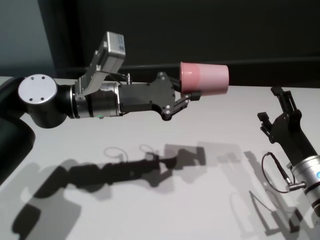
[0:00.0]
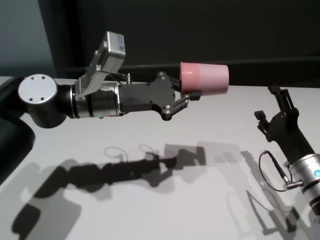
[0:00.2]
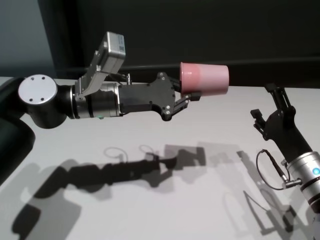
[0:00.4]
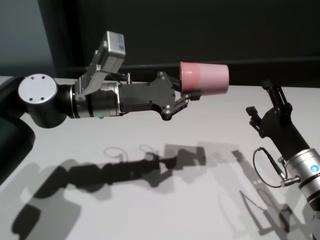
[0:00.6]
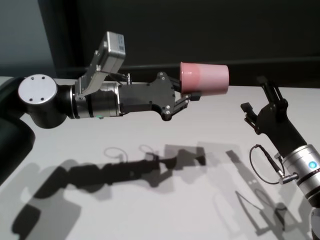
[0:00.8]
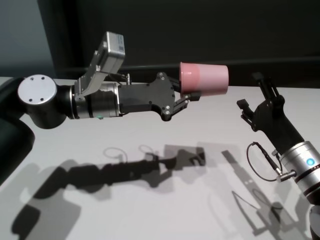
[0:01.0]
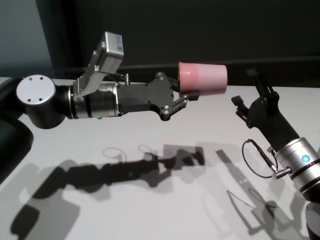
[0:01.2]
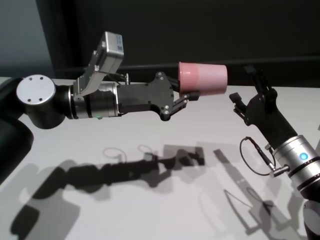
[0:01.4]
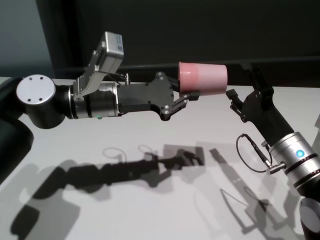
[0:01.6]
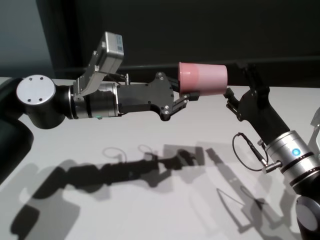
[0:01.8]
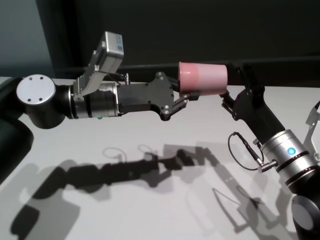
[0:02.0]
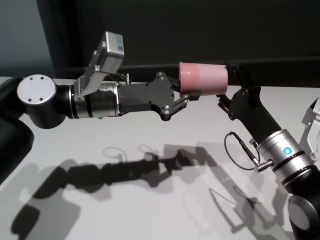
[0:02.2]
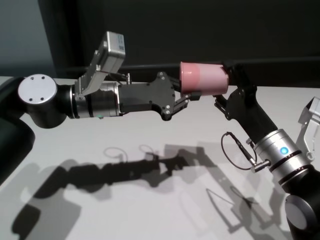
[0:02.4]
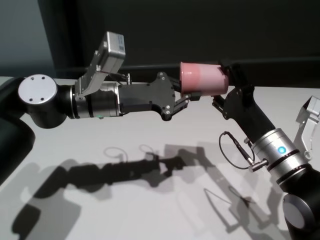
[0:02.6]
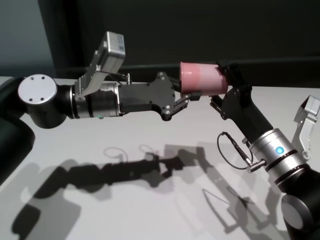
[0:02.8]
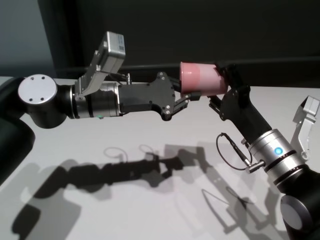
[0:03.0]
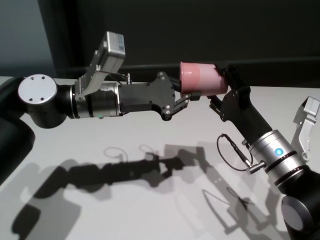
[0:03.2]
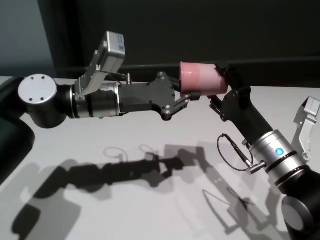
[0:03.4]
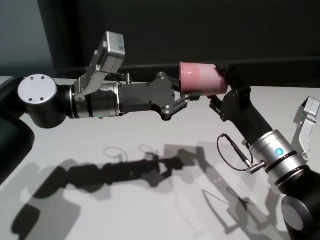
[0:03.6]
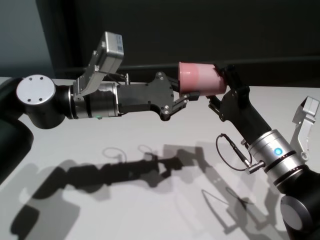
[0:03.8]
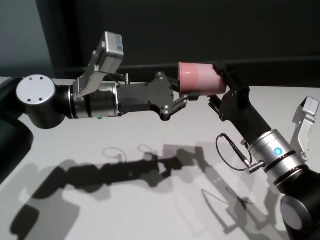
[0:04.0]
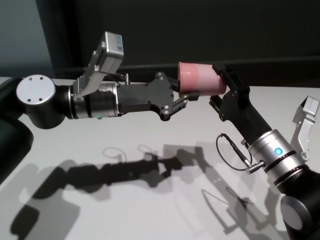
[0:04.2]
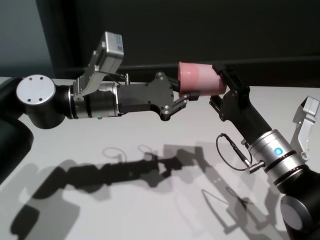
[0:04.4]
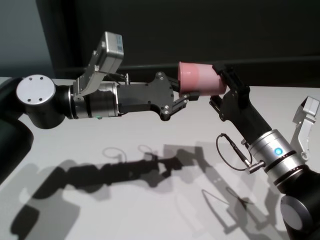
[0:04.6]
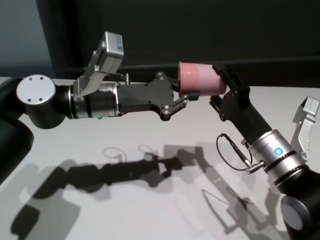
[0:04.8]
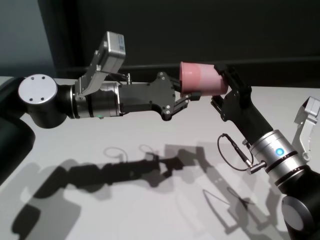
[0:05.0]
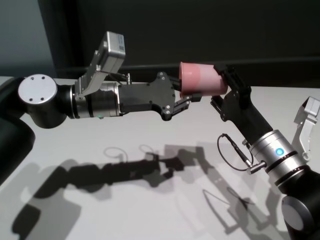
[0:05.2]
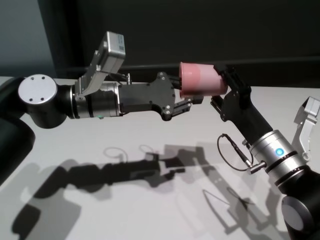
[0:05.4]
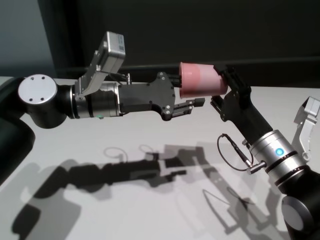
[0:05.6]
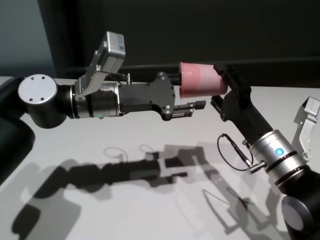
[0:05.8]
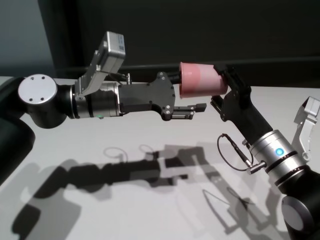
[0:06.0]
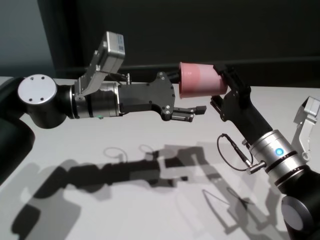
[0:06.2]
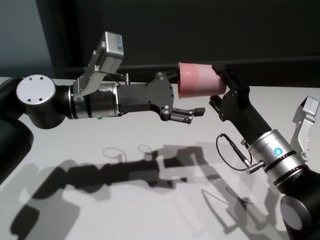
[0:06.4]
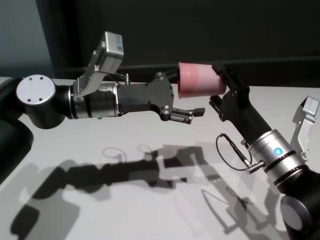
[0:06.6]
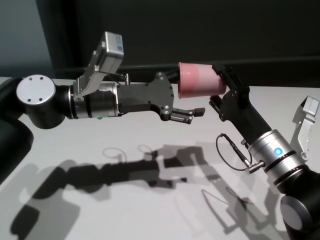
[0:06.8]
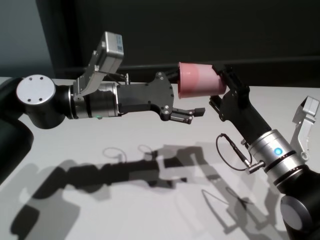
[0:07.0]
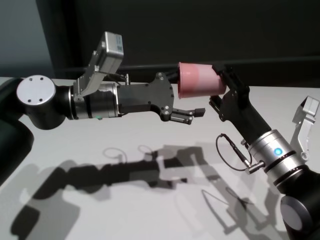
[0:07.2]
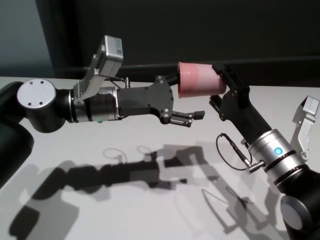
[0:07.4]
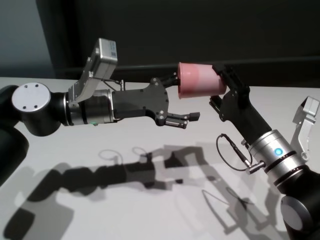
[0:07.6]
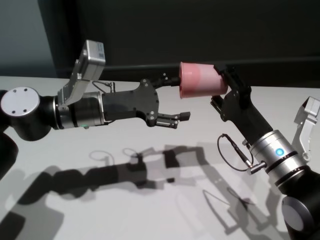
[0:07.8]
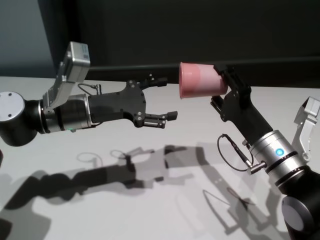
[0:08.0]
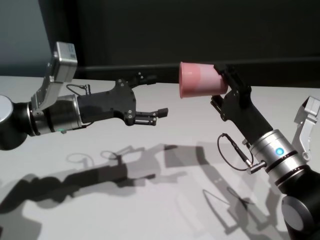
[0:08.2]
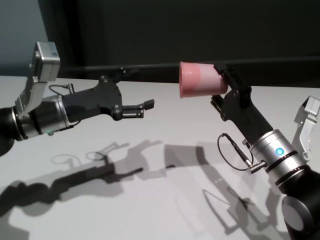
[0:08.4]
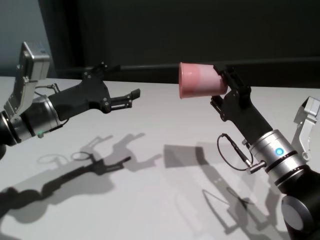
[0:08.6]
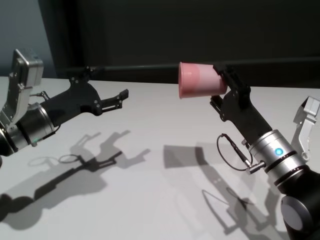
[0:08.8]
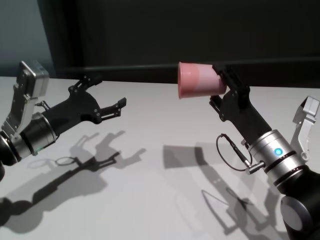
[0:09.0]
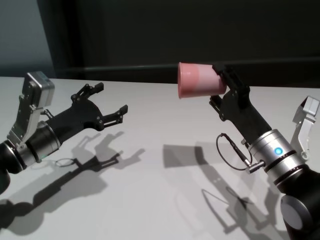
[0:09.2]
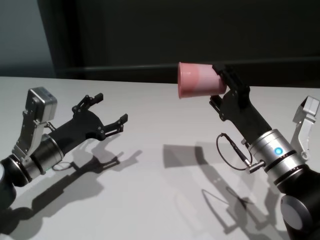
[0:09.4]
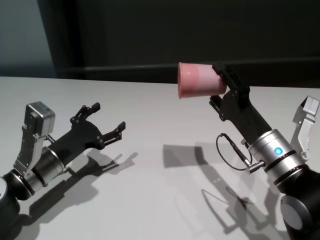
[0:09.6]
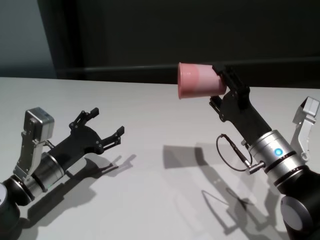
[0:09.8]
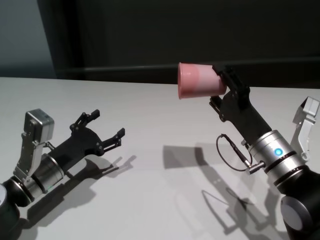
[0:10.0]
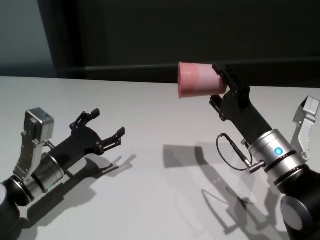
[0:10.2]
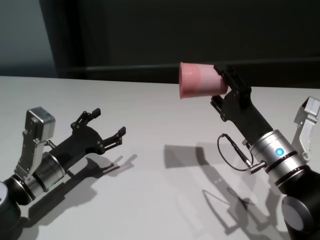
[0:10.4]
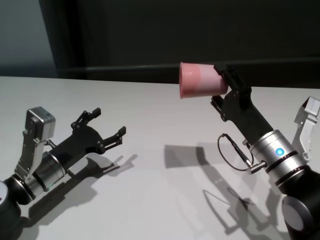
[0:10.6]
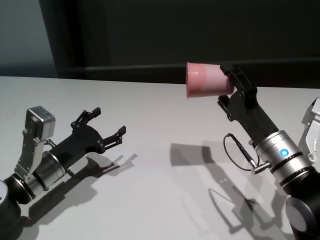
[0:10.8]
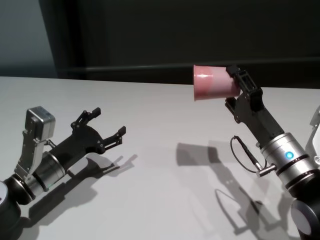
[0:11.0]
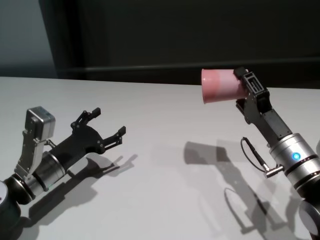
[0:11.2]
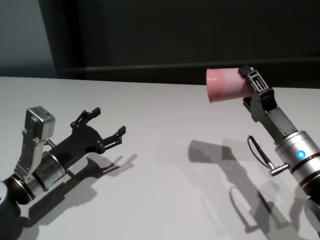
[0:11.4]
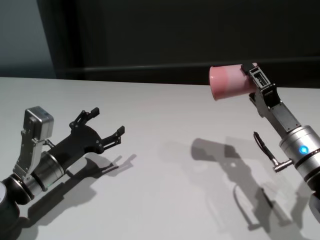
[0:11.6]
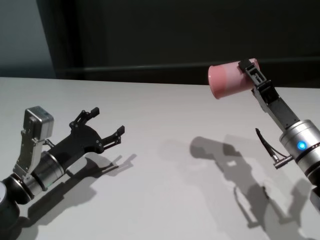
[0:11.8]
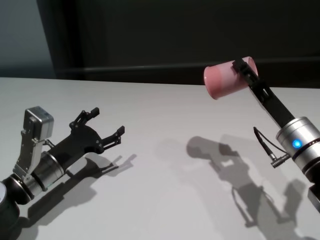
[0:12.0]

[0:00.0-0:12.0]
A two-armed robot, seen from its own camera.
Task of the whole recording: On the white table pick up the cup with one hand and transfer it to the other hand before turning it over.
Step, 0:00.0 to 0:07.8: Pass the cup to the right gripper.

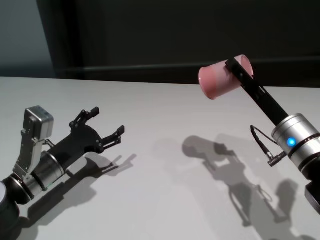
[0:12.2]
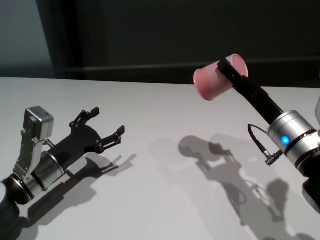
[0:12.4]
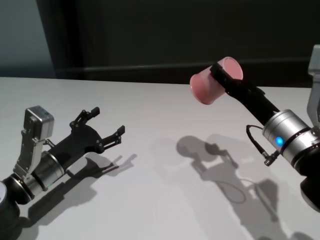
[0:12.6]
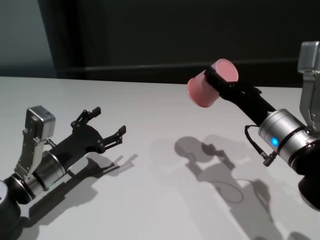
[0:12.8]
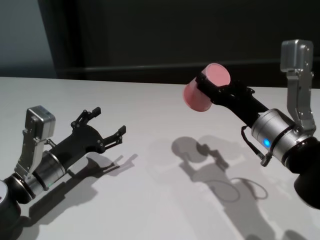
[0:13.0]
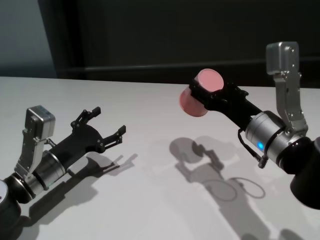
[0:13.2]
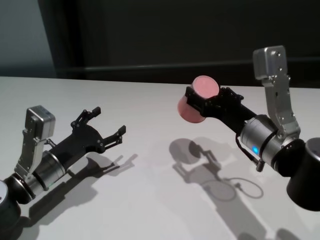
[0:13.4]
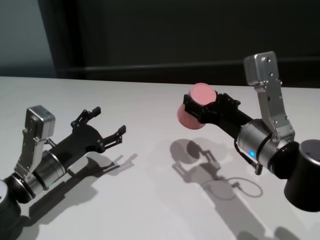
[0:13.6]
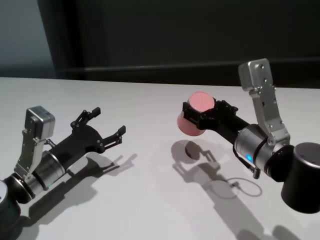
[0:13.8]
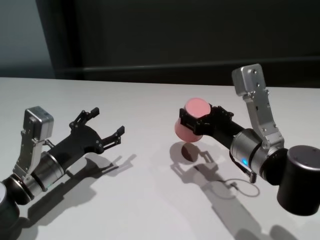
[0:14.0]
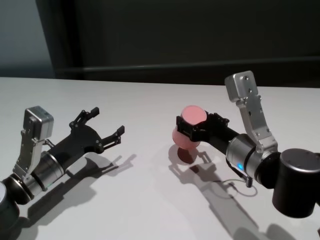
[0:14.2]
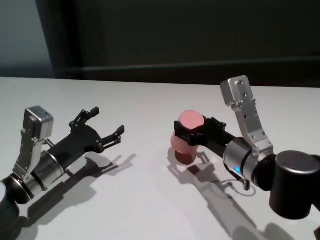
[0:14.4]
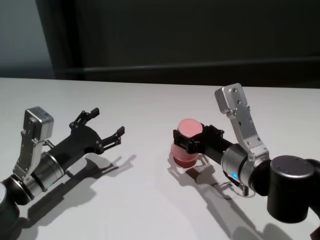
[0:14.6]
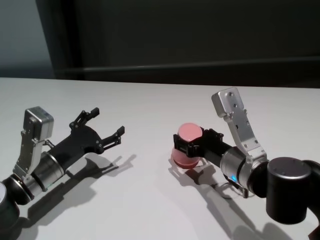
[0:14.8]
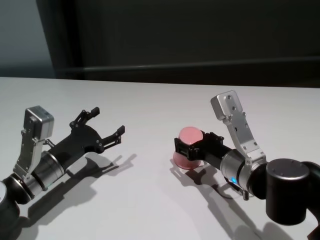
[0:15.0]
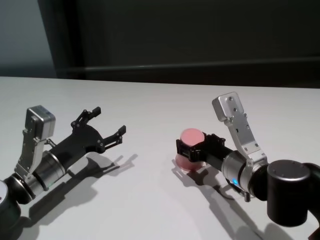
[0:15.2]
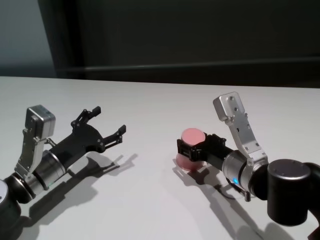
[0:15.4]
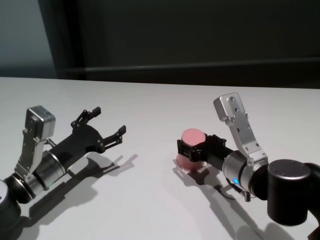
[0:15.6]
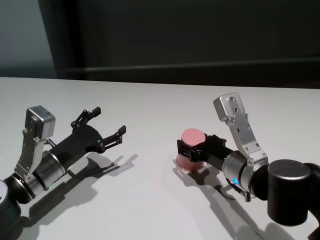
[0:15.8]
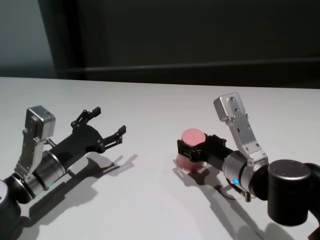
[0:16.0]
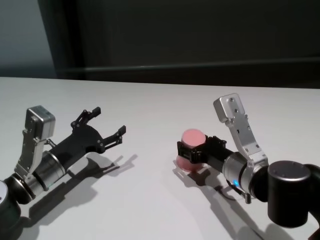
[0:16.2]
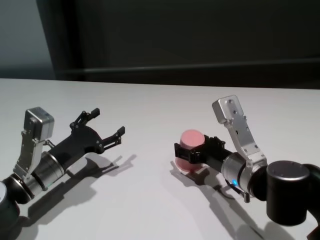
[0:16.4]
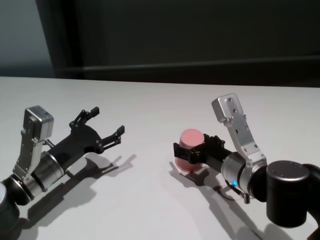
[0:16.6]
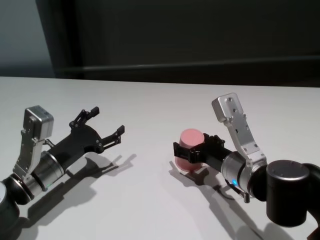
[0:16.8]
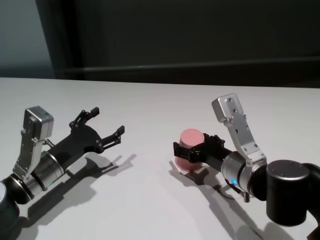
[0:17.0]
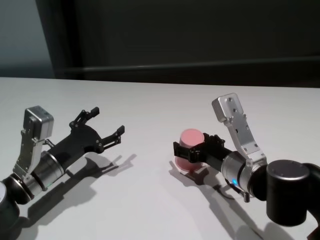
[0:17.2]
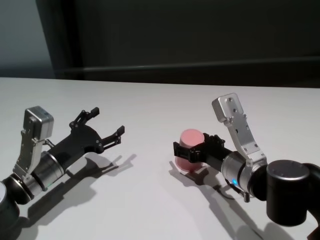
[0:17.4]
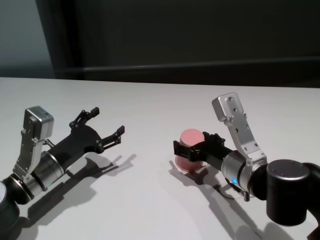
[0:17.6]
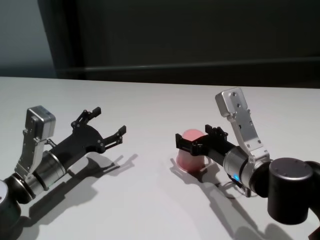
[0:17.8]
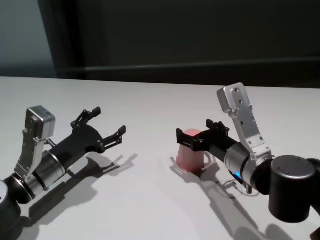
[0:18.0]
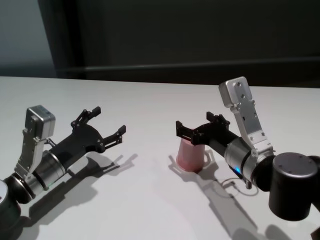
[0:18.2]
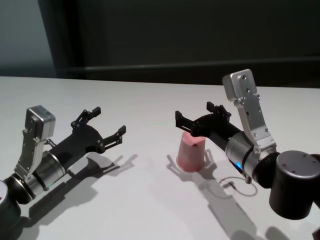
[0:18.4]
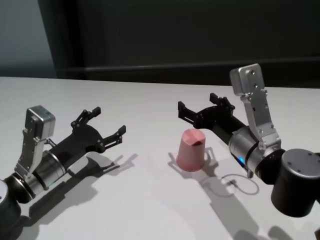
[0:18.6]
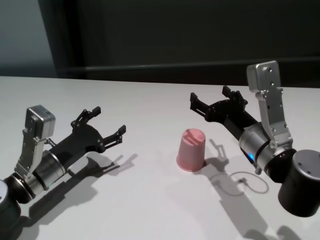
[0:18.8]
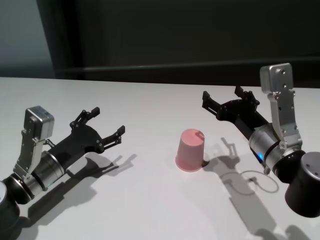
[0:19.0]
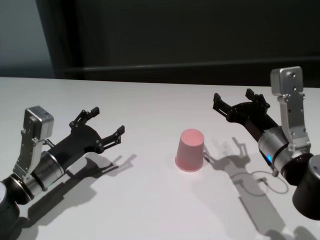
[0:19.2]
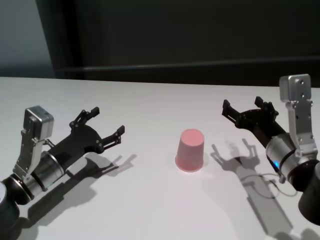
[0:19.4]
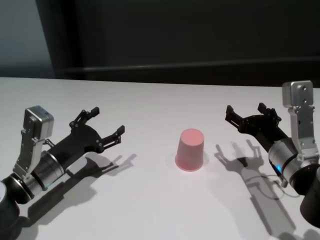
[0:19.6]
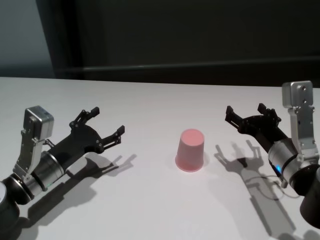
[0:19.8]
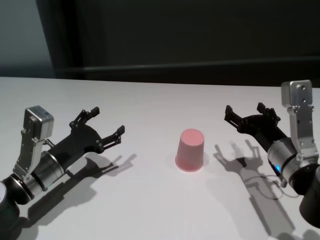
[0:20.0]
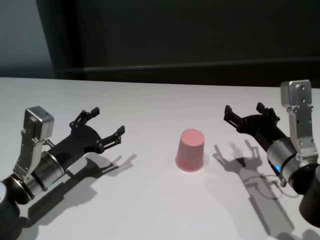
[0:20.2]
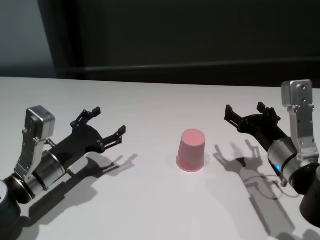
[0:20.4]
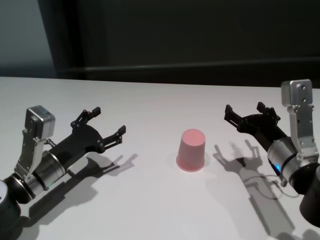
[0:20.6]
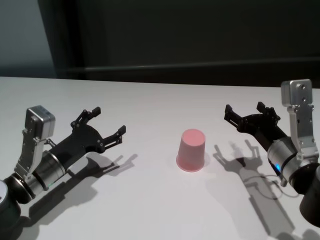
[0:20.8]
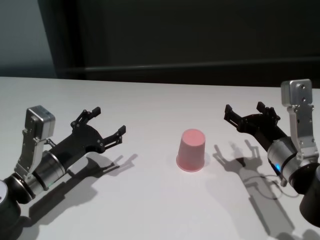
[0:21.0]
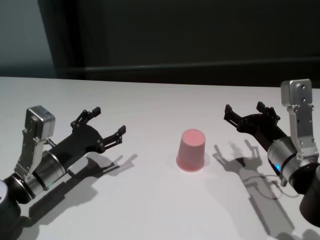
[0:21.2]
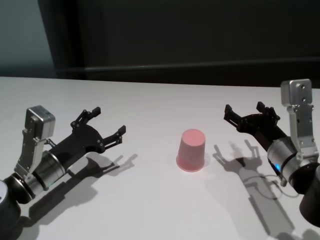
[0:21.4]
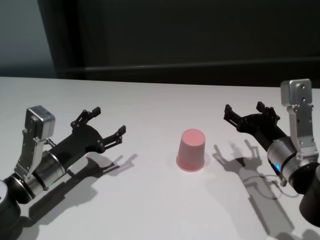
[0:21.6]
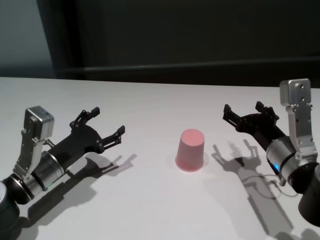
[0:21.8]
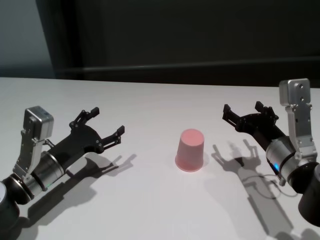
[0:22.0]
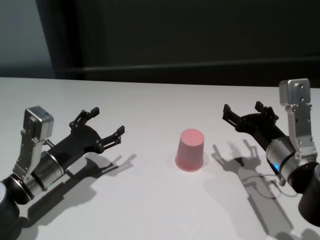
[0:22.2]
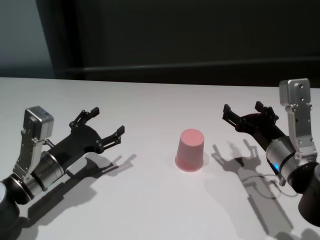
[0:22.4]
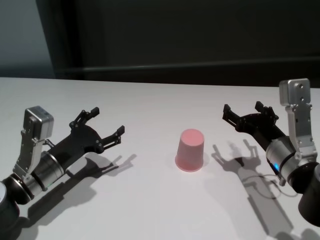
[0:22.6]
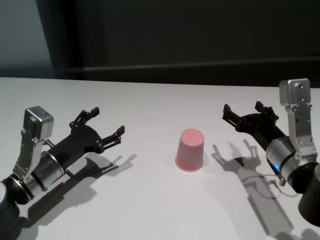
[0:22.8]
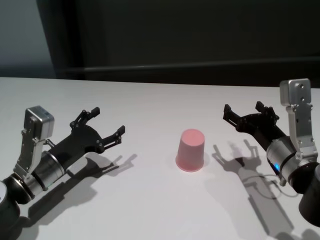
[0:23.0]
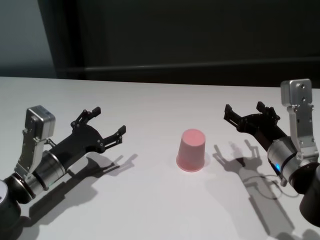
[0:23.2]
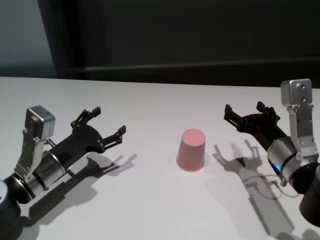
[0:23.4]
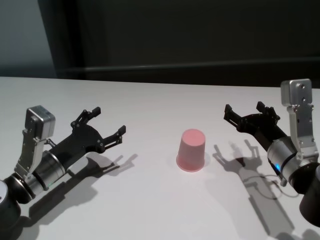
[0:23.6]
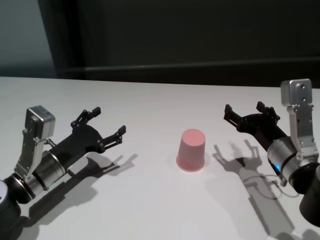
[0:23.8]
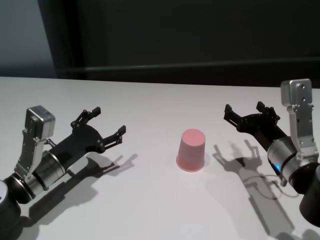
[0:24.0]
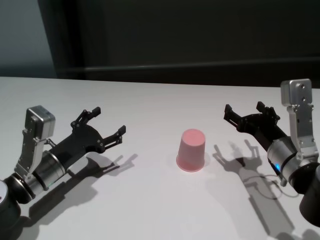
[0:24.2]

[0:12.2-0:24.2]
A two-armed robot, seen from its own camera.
Task of the whole recording: On the white table pick up the cup with one hand and transfer it to the other hand before turning it over.
Step, 0:12.2 to 0:17.6: Place the cup on the table with right gripper.
